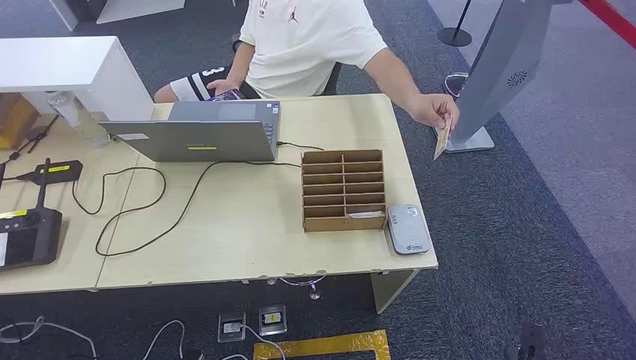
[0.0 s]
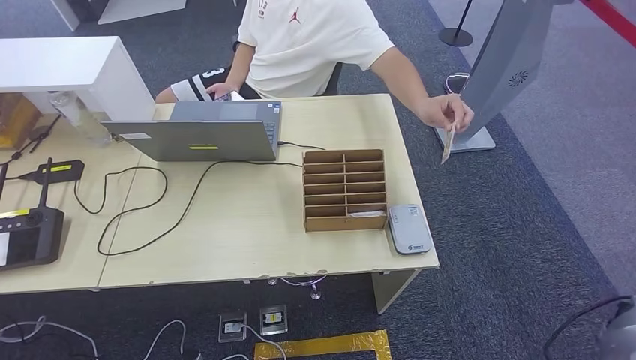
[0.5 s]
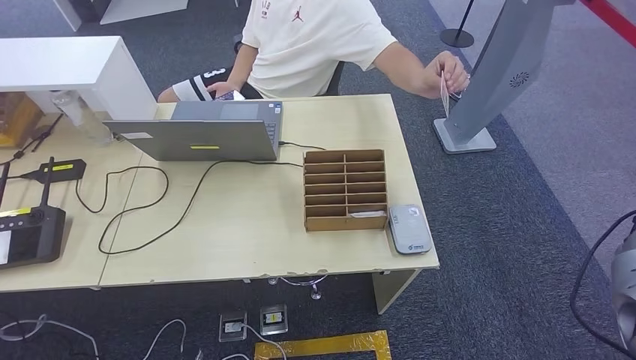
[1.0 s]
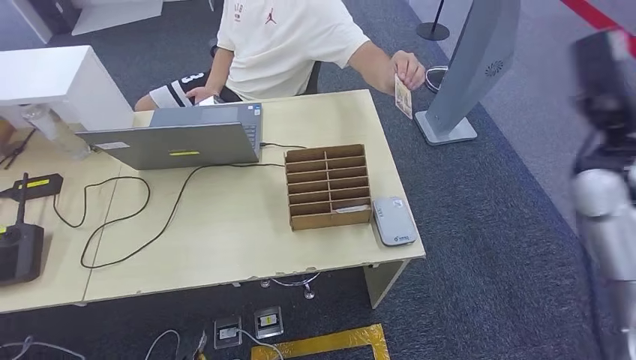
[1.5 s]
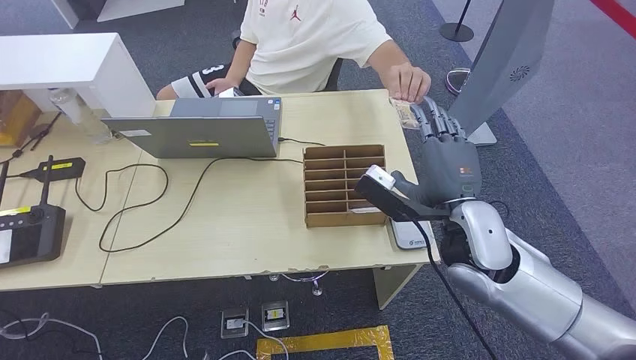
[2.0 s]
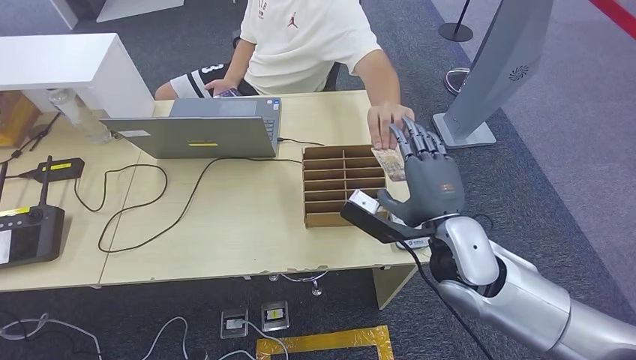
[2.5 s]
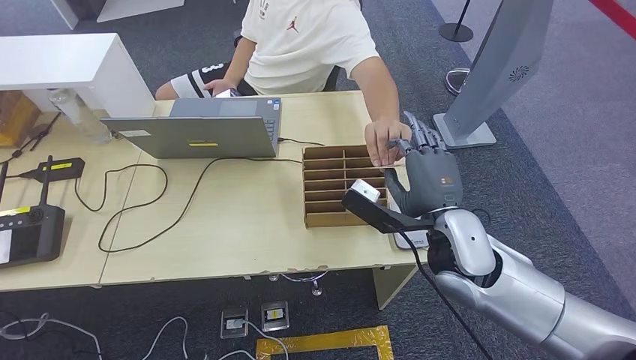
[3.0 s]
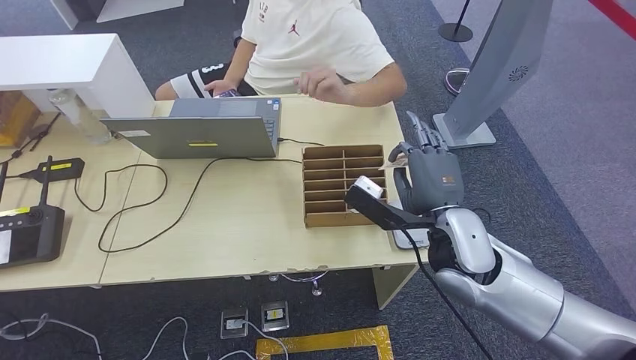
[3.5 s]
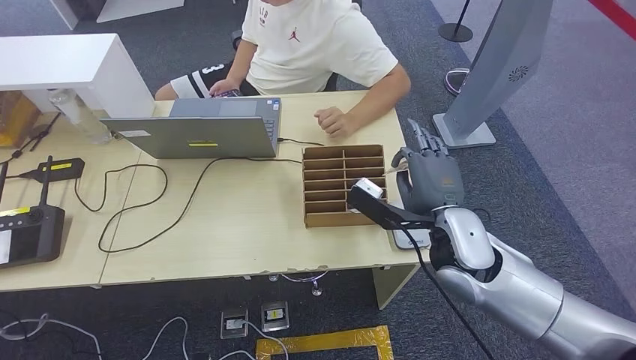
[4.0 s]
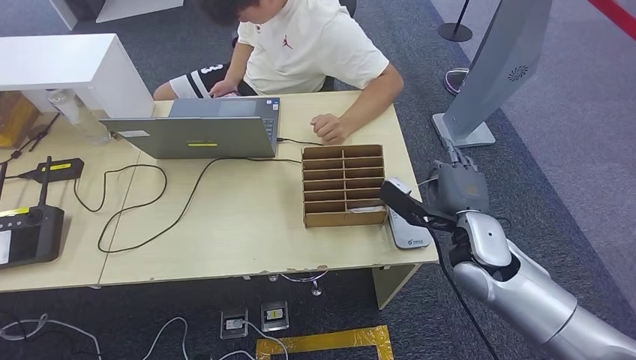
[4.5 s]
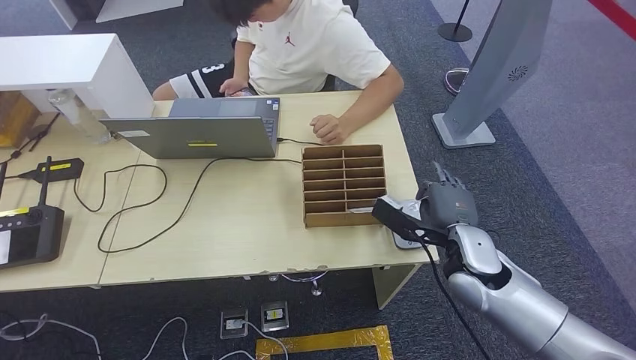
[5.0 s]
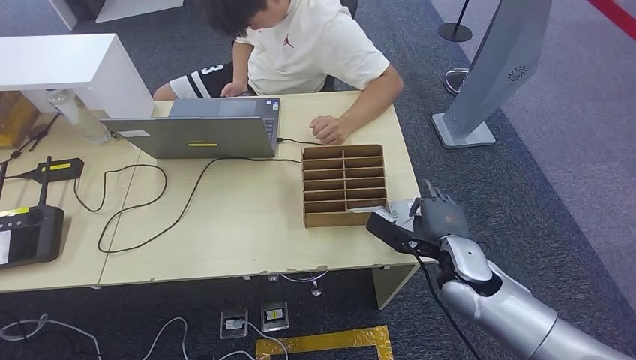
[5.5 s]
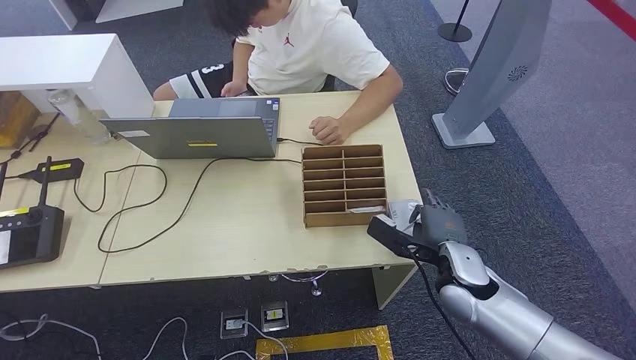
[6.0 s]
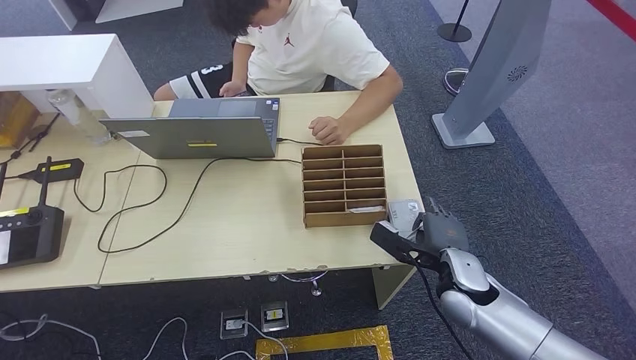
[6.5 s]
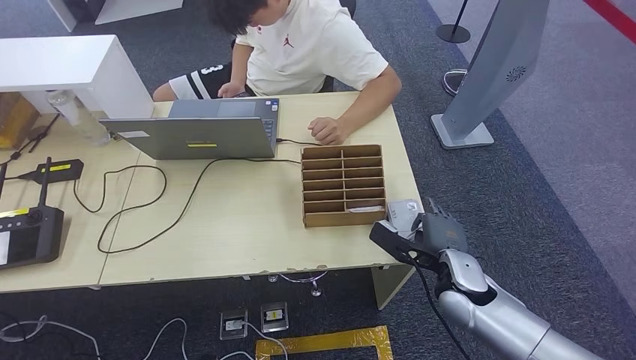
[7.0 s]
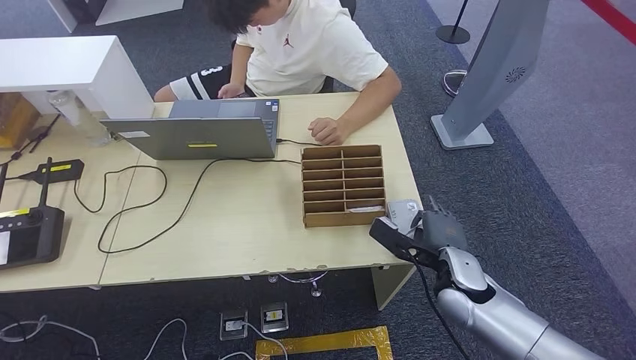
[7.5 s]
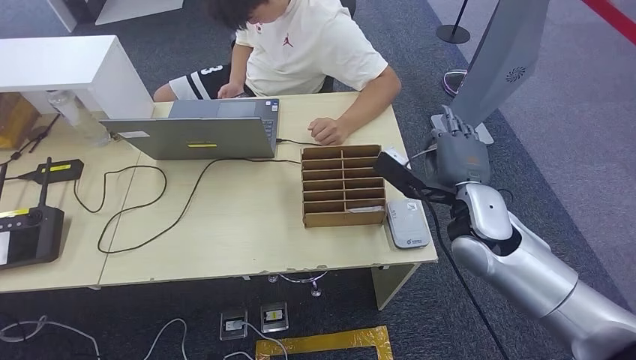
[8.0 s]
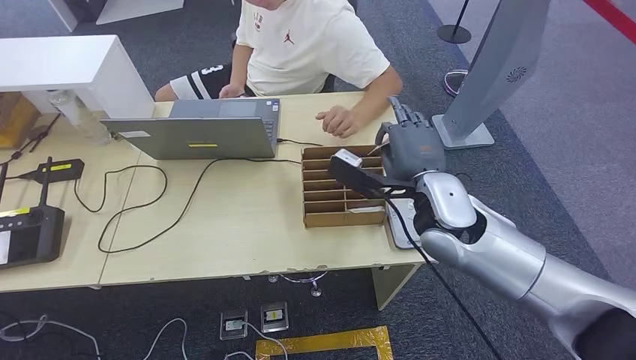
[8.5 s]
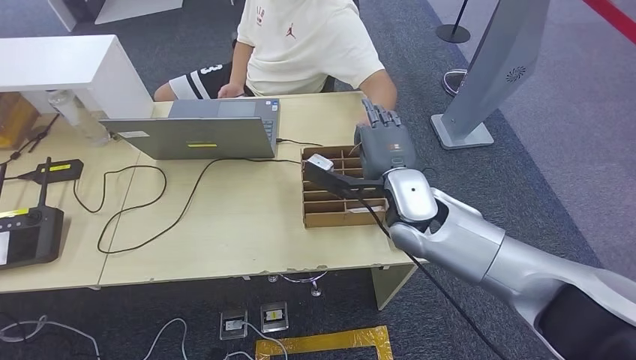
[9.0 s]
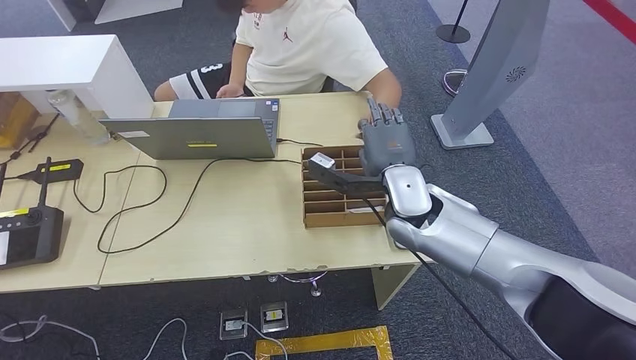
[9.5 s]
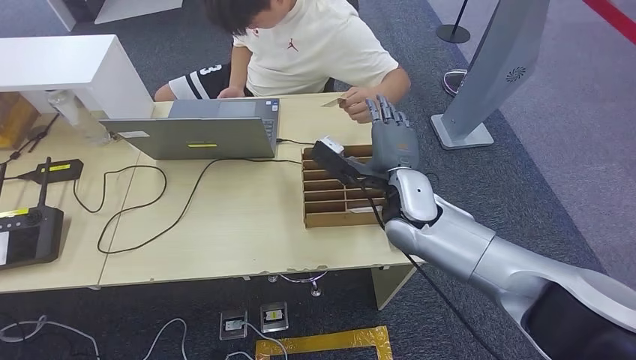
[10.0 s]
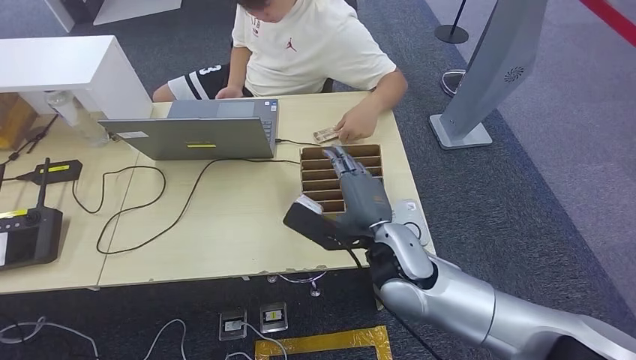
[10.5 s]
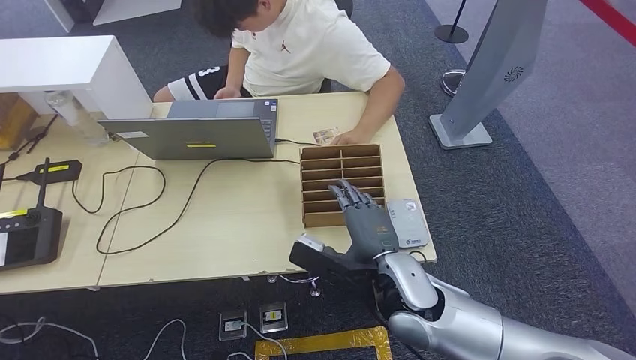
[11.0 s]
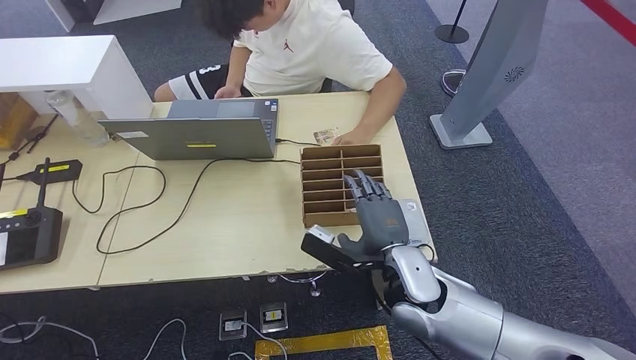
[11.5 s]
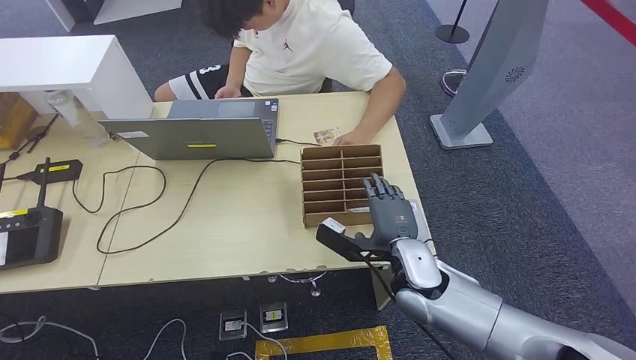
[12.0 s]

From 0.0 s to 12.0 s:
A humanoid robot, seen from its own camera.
Step, from 0.0 s to 3.5 s: Take the ID card from the person's hand.
Step, from 4.0 s to 7.5 s: Place the ID card on the card reader.
Step, from 8.0 s to 9.5 s: Hand the ID card to the person.
From 2.0 s to 4.0 s: The hands move only a little.
From 4.0 s to 6.0 s: The right hand moves downward, some 10 cm.
From 6.0 s to 8.0 s: The right hand heads upward, covering approximately 10 cm.
From 8.0 s to 10.0 s: The right hand is displaced to the left by roughly 10 cm.
From 10.0 s to 12.0 s: The right hand goes approximately 15 cm downward and backward.

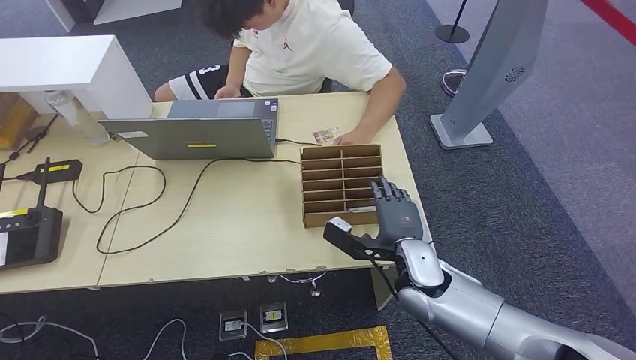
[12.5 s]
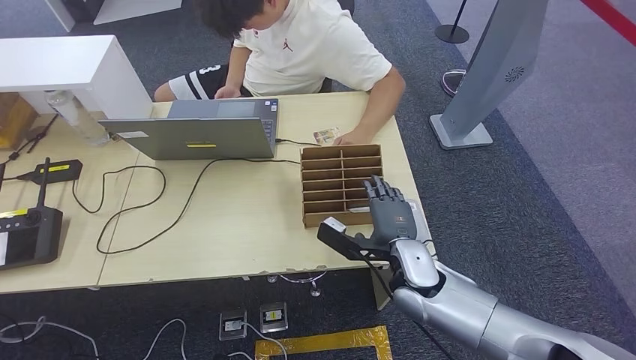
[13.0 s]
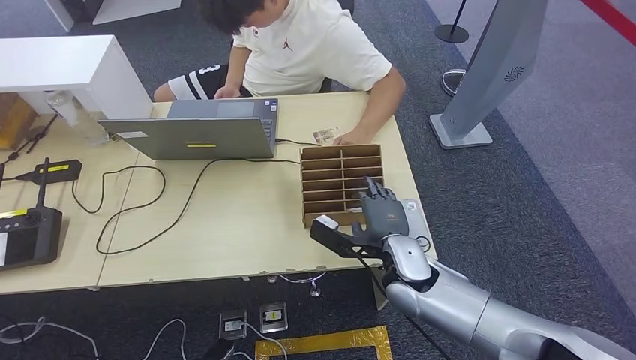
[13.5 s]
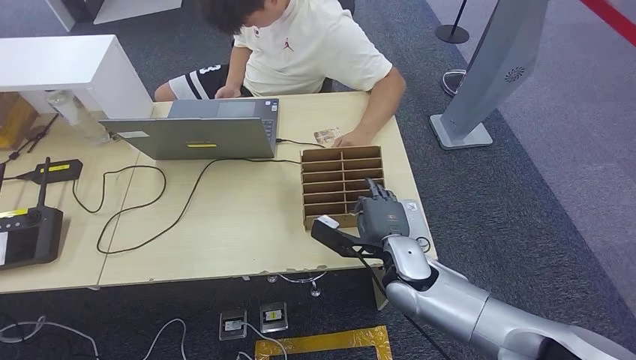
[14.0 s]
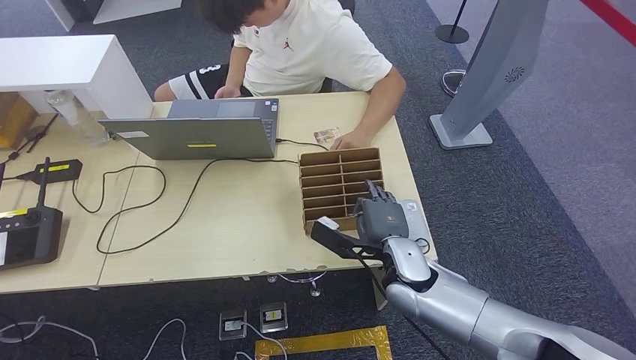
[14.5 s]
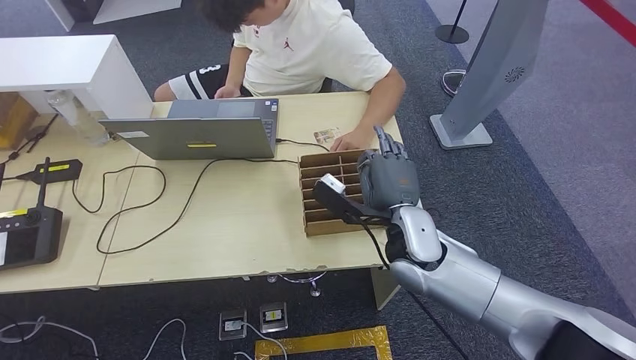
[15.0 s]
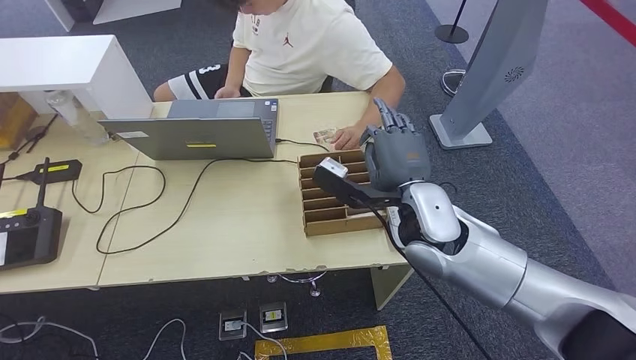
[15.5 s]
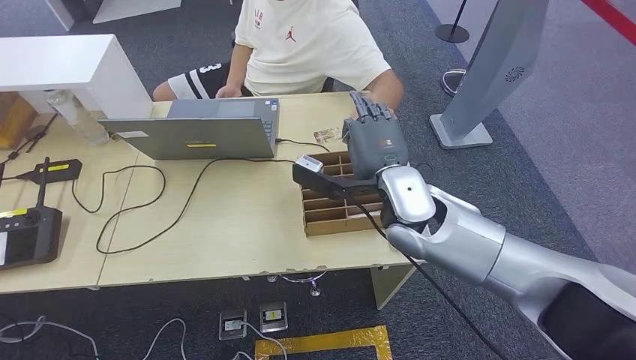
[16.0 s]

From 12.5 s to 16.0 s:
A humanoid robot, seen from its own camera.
Step, from 12.5 s to 15.0 s: Pick up the room key from the key card box.
Step, from 15.5 s to 16.0 s: Hand the room key to the person.
From 12.5 s to 14.5 s: The hands move only a little.
From 14.5 s to 16.0 s: The right hand travels upward by about 15 cm.
